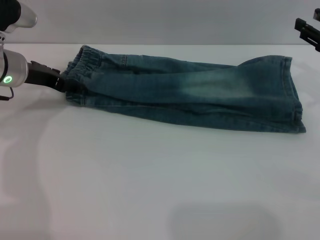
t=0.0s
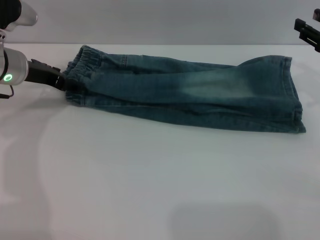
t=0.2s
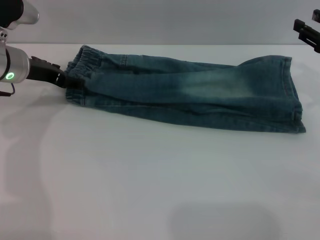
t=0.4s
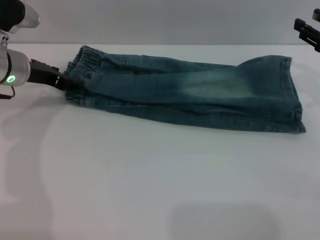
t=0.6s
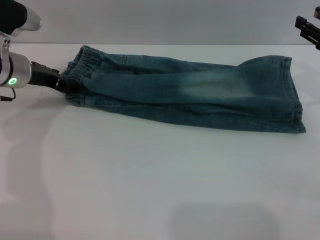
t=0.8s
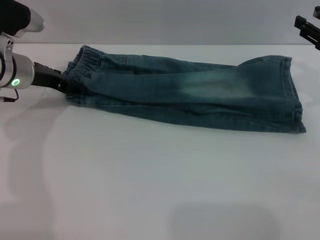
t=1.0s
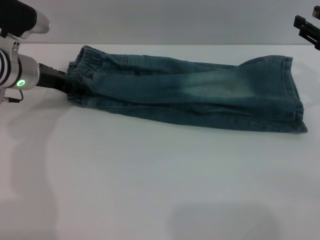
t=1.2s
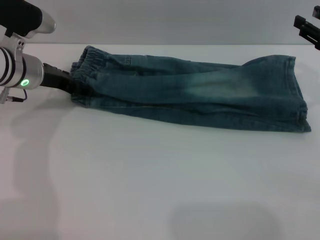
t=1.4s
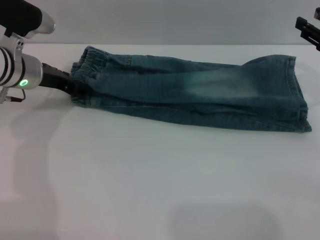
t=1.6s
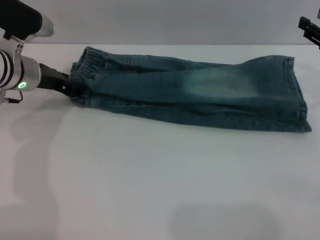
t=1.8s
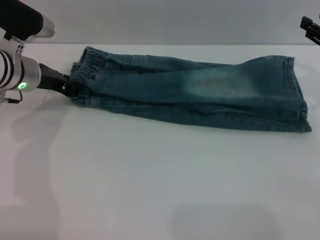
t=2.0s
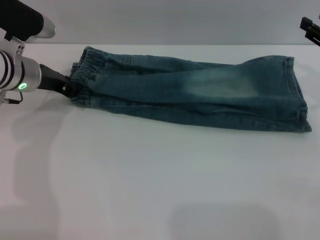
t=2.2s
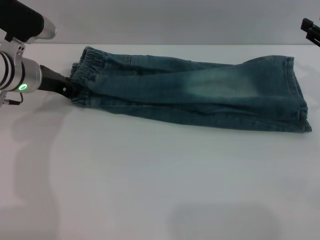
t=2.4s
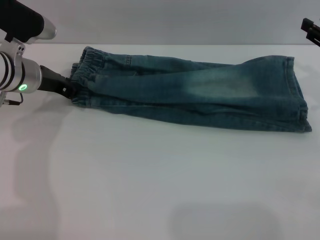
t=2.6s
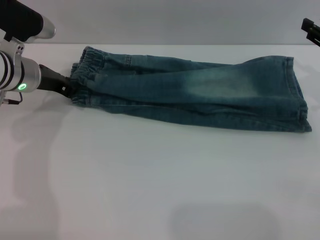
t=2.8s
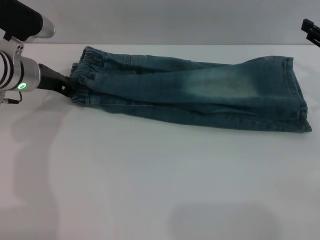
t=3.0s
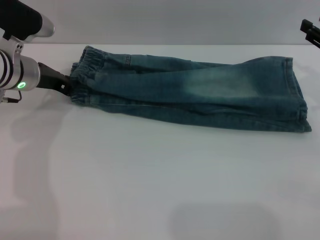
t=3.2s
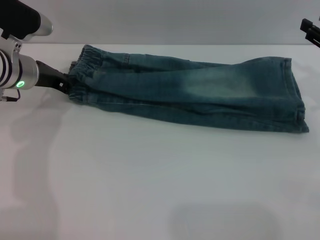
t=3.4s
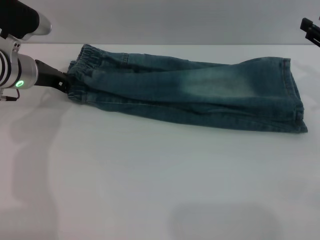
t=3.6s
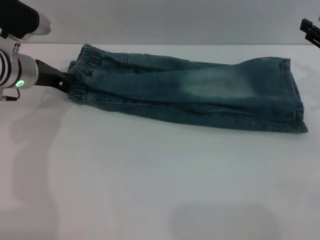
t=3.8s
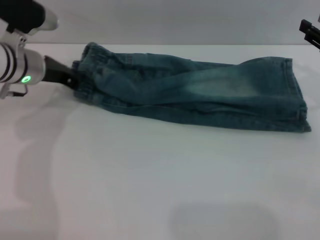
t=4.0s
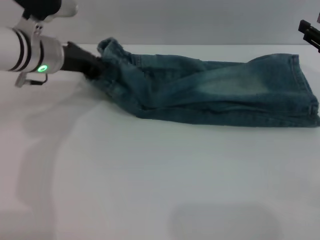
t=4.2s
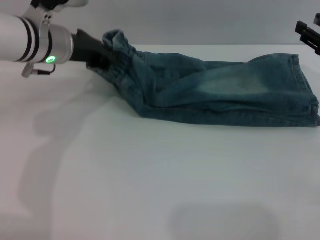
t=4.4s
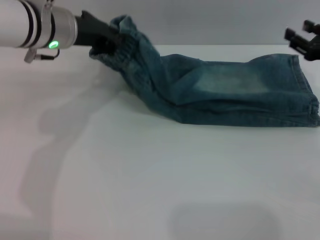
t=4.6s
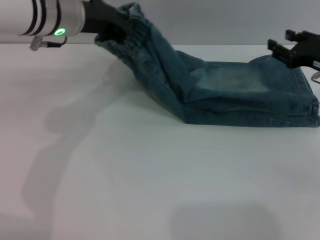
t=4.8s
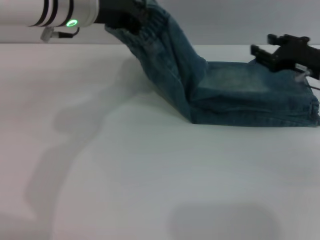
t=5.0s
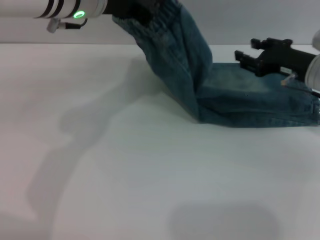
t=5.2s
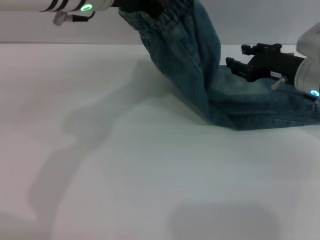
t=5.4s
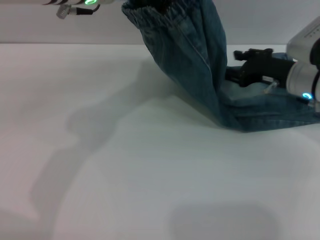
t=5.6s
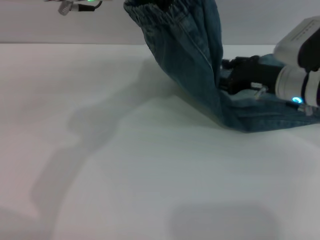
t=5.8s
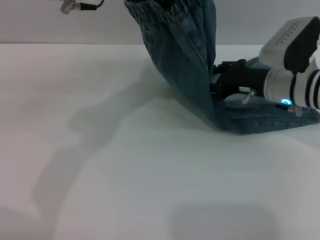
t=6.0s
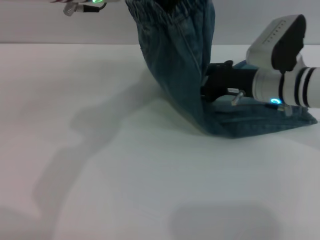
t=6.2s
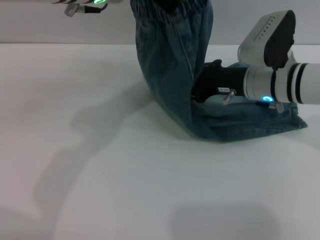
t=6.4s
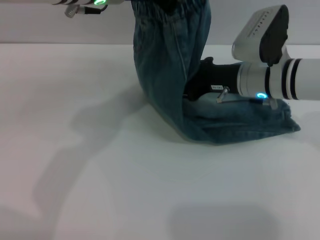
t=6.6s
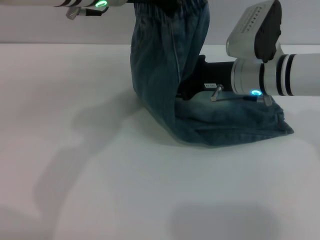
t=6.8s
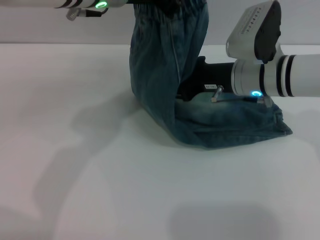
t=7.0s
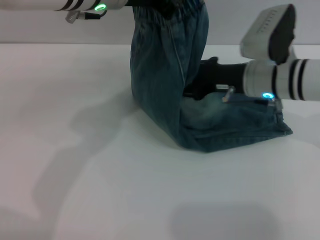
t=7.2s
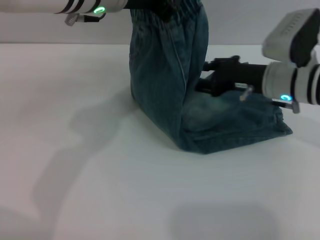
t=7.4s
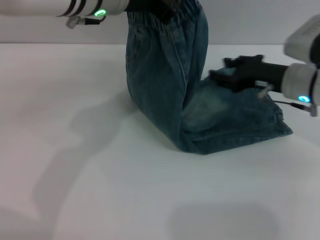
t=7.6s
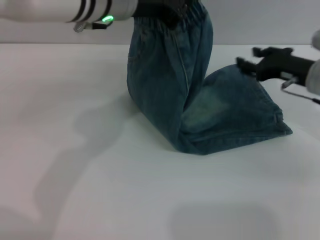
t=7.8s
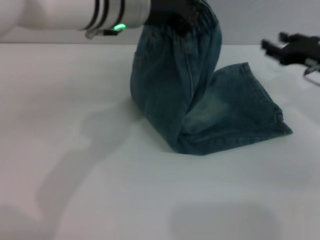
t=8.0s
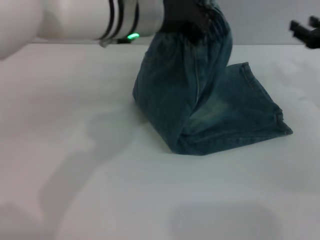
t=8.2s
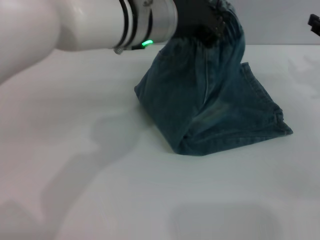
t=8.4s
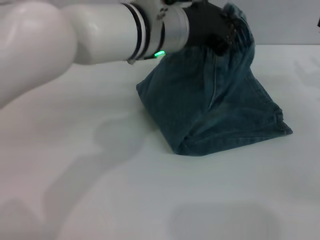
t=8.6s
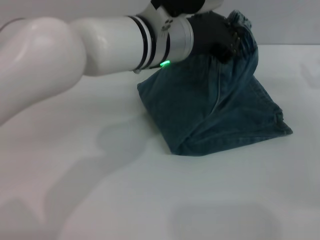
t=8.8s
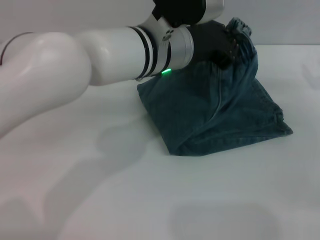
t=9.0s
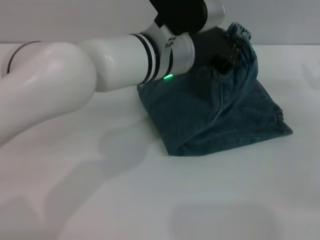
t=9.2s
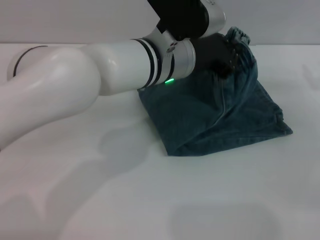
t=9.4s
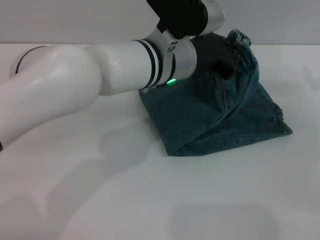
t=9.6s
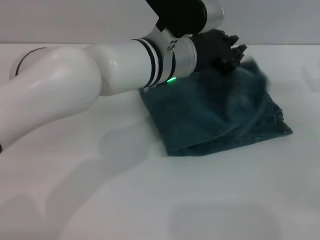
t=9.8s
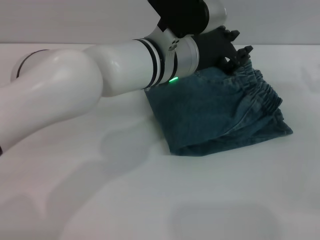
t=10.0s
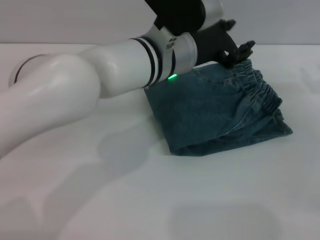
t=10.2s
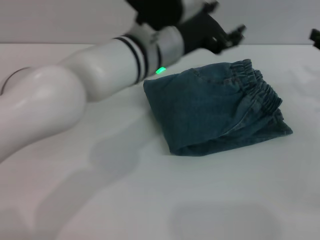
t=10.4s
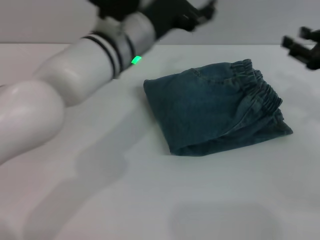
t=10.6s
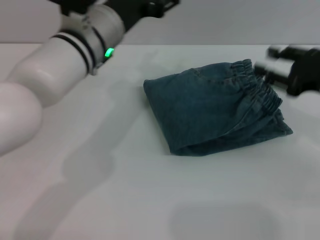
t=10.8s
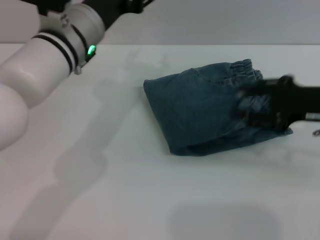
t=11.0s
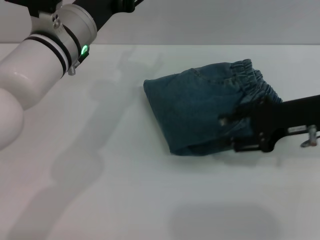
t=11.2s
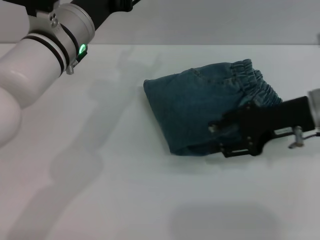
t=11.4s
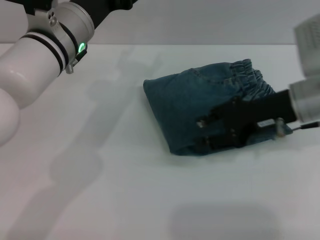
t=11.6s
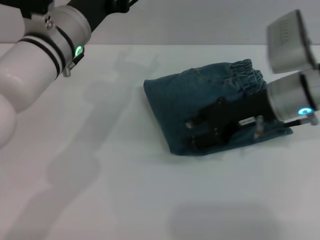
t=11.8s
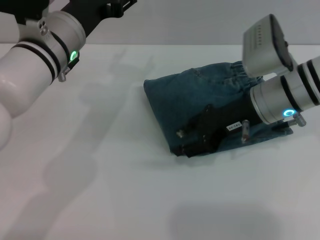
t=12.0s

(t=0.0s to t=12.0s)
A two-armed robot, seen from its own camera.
Step, t=0.0s - t=10.2s: Fold the pants from left to right with the left gripper.
t=0.0s - t=1.6s: The grippers stay close to where they were, moving slightly.
t=1.6s - t=3.0s: The left gripper closes up.
t=3.0s - t=4.4s: The left gripper heads to the right, covering approximately 5 cm.
t=4.4s - t=6.0s: The right gripper is displaced to the left by about 15 cm. Meanwhile the left gripper travels upward and to the right by approximately 15 cm.
t=6.0s - t=7.6s: The right gripper goes to the left and returns, approximately 5 cm each way.
t=7.6s - t=9.0s: The right gripper is displaced to the right by roughly 15 cm; the left gripper goes about 10 cm to the right and downward.
t=9.0s - t=10.4s: The left gripper opens.
t=10.4s - t=12.0s: The left gripper moves to the left, approximately 10 cm, and opens. Meanwhile the right gripper is displaced to the left by approximately 20 cm.

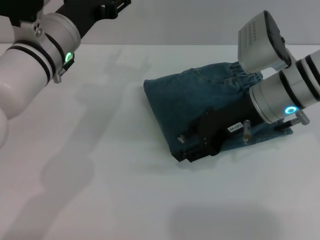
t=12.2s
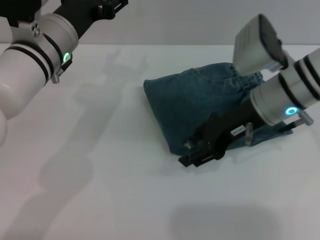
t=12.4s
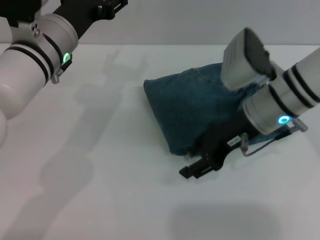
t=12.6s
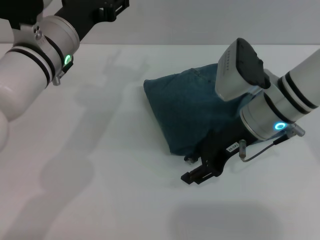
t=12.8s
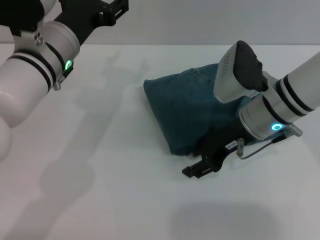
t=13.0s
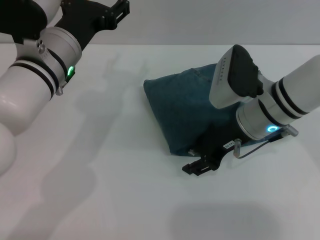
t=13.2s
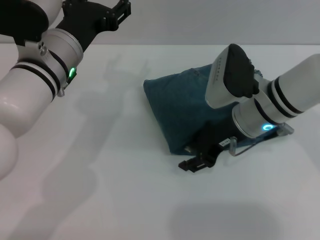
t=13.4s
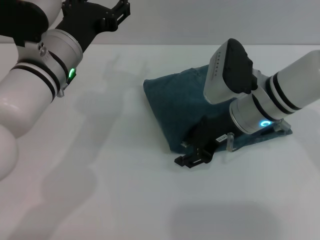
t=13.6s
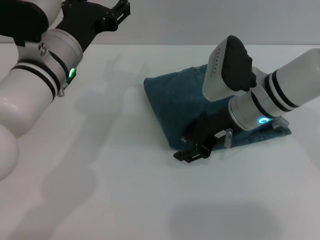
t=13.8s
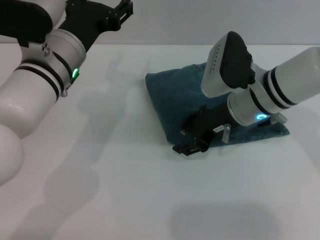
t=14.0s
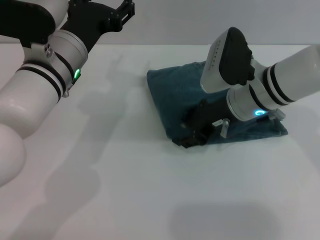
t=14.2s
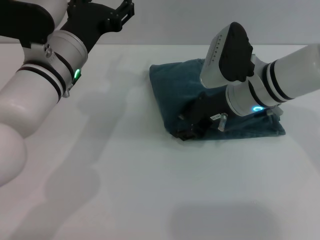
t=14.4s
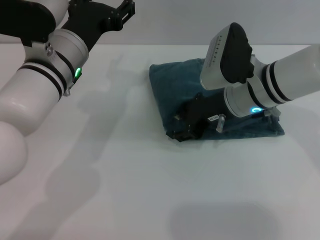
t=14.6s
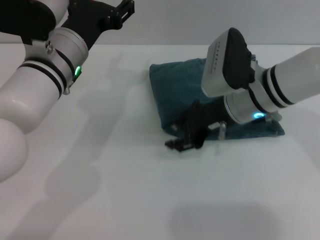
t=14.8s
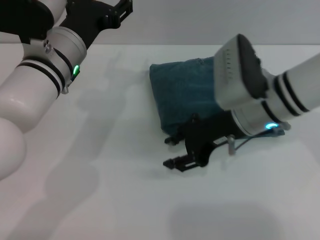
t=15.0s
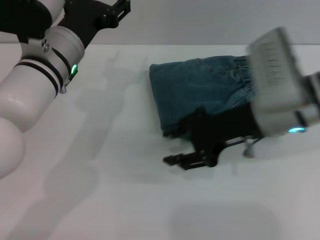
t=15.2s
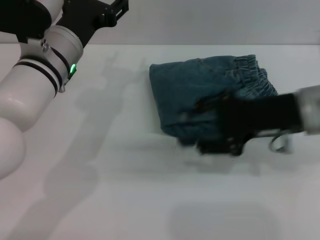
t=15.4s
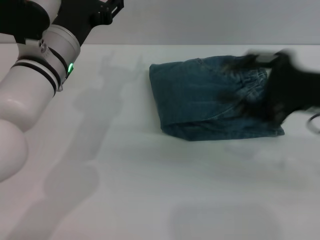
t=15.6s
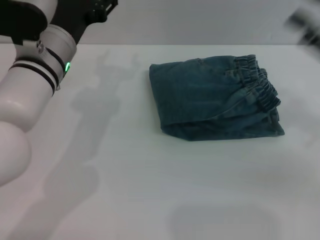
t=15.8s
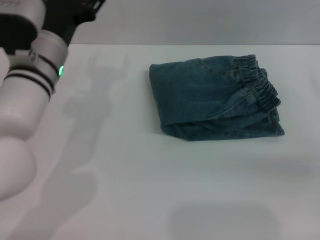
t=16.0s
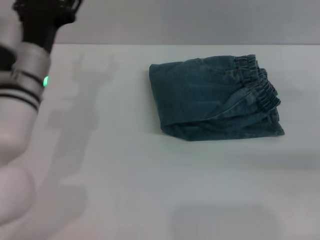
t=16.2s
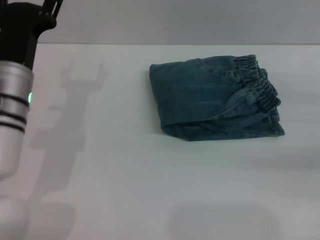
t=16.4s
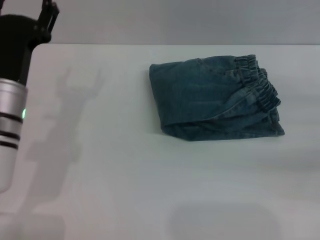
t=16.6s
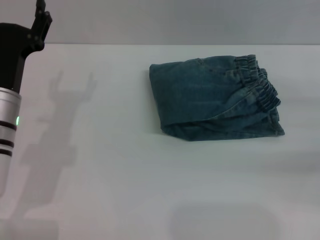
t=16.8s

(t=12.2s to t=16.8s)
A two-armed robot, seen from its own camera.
Step, t=12.2s - t=15.2s: Place the folded trousers onto the center area with the right grippers.
t=12.2s - t=13.8s: There are only small adjustments of the grippers.
t=13.8s - t=15.2s: The right gripper changes place by roughly 5 cm.
t=15.2s - t=16.8s: The left gripper is displaced to the left, downward and backward by about 10 cm. The right gripper travels to the right by approximately 25 cm.

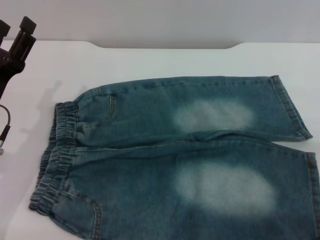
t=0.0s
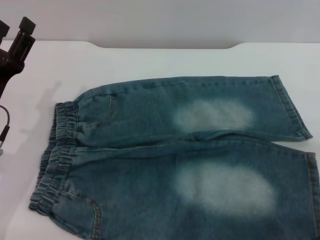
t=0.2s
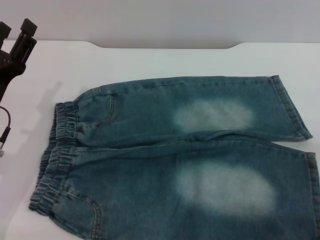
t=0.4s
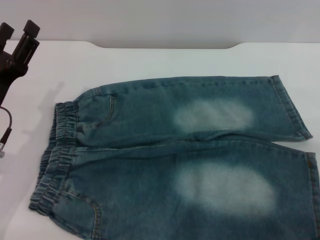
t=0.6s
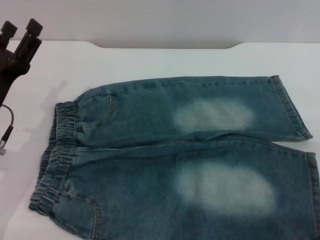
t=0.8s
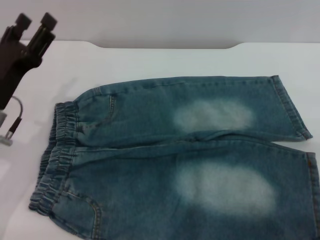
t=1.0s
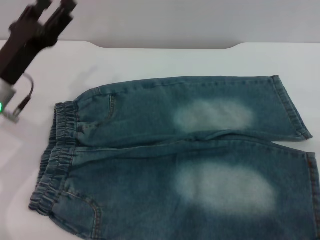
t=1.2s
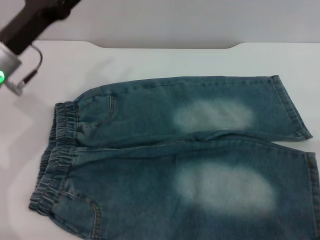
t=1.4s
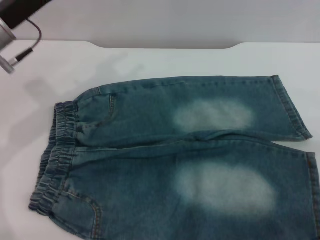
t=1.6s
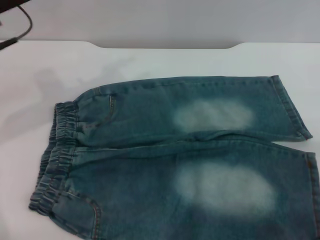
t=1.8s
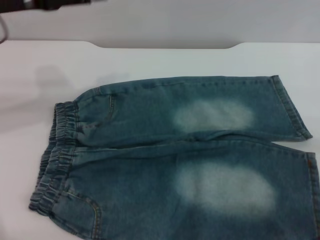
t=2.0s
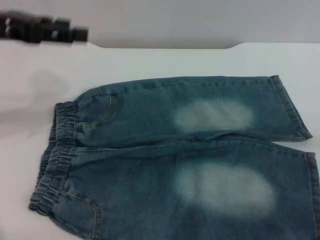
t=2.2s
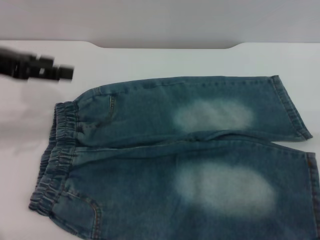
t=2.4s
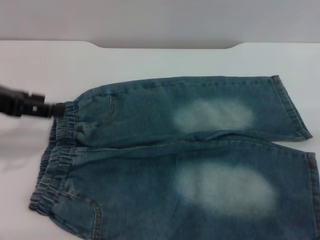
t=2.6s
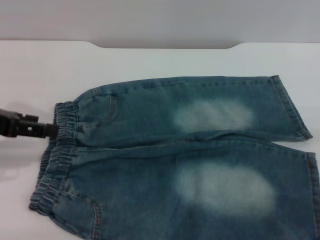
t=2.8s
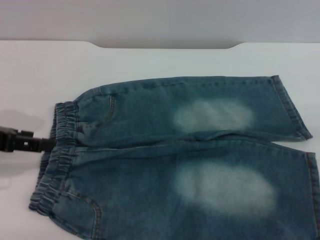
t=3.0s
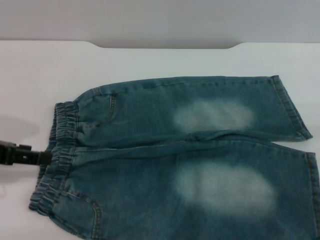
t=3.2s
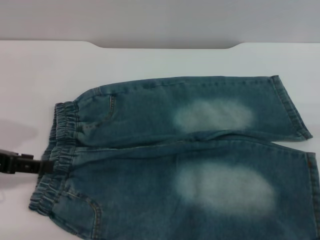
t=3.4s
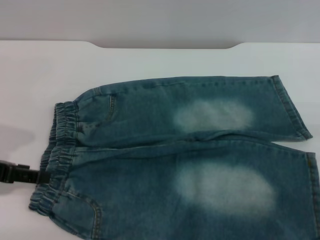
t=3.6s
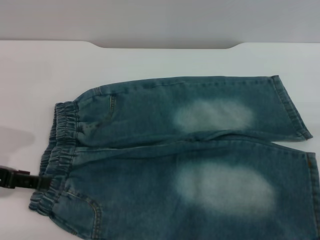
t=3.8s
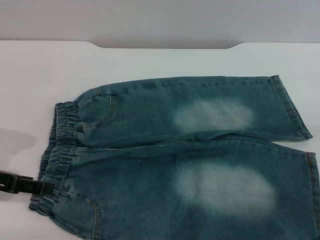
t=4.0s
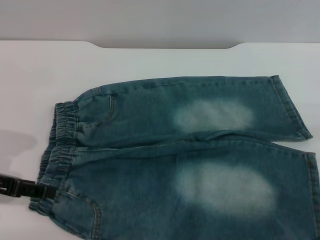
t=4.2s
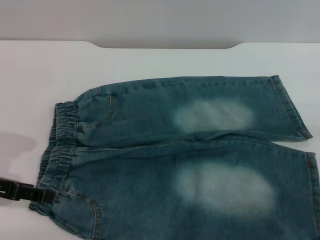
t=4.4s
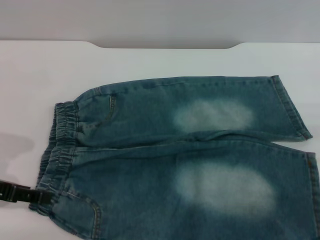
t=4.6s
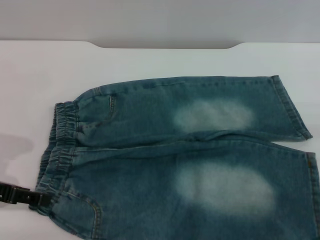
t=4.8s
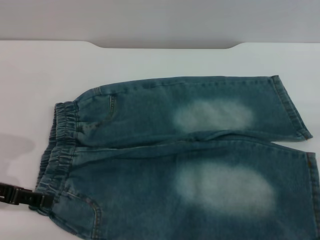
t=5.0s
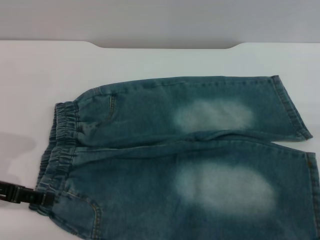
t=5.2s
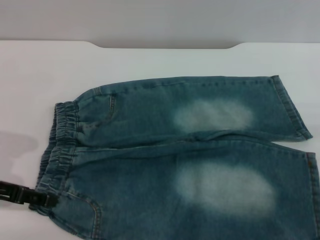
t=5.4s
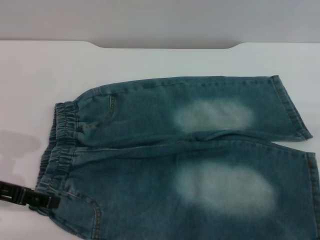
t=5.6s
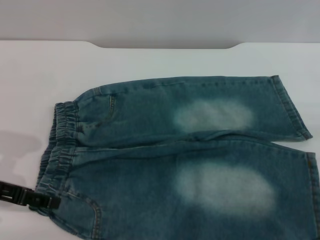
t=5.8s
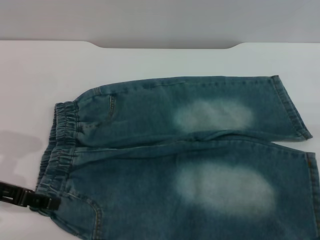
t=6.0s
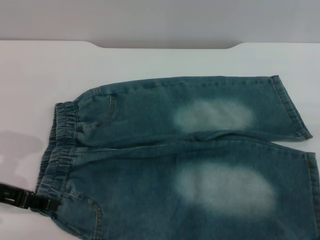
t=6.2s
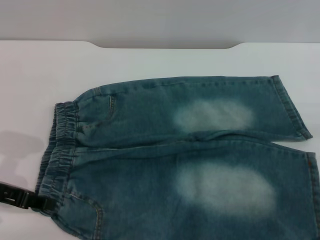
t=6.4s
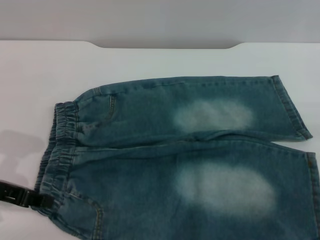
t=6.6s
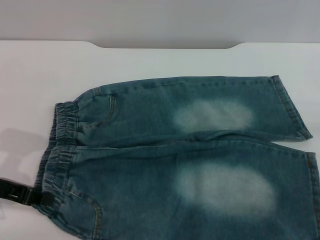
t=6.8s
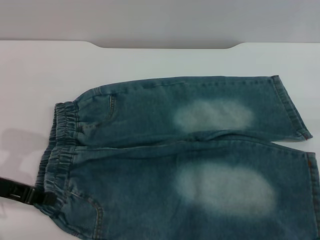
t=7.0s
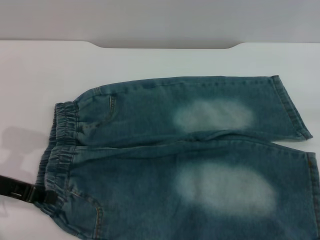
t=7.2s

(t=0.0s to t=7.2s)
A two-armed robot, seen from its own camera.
t=0.0s - t=1.4s: The left gripper shifts about 10 cm forward and upward.
t=1.4s - t=2.8s: The left gripper heads upward, to the left and backward, covering approximately 10 cm.
t=2.8s - t=4.4s: The left gripper is displaced downward by approximately 5 cm.
t=4.4s - t=5.8s: Both grippers stay put.
t=5.8s - t=7.2s: The left gripper closes.
